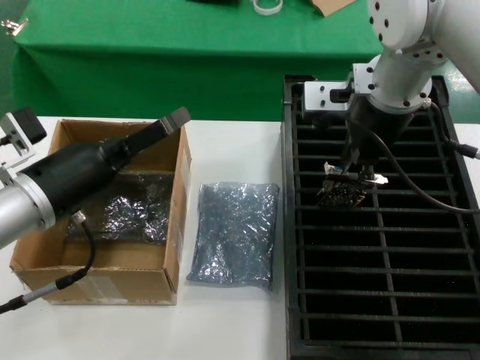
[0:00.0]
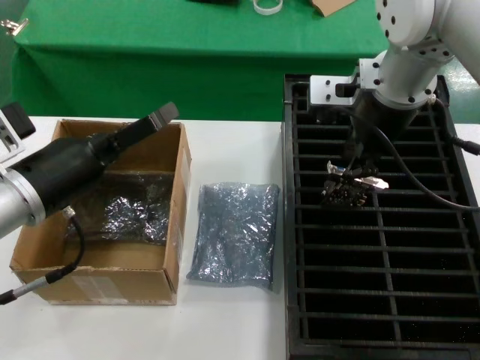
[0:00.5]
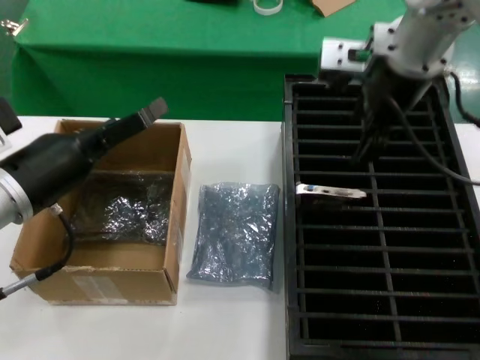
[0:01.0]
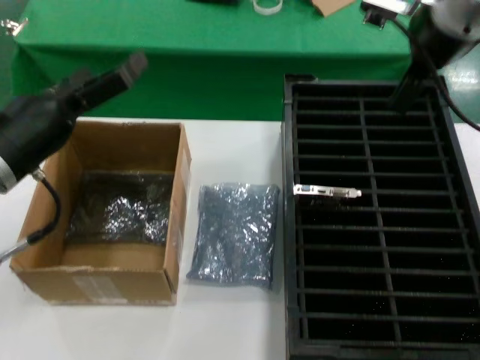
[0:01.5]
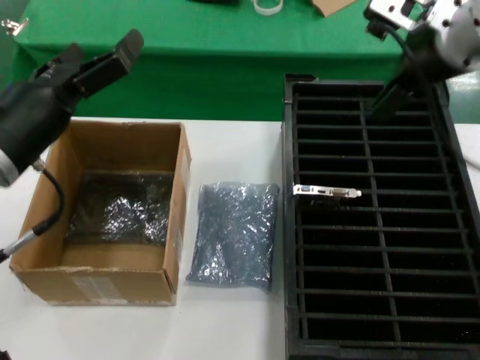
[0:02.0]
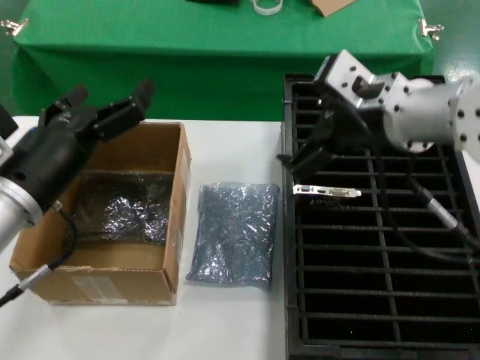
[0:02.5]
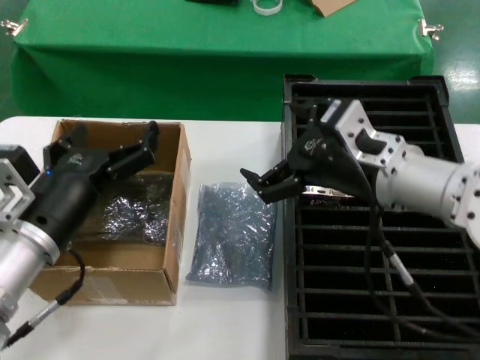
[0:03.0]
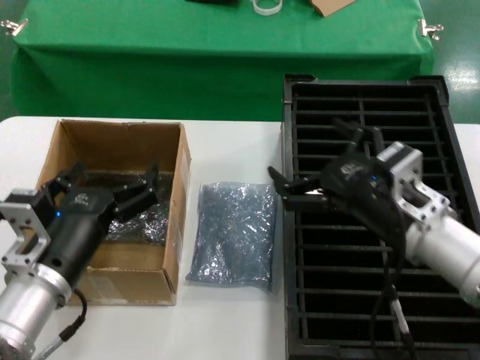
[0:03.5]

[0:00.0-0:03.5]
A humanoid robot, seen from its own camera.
Task of the whole recording: take out graphics card from box remove packaging put into black container.
0:00.0 to 0:02.0: The left hand moves about 5 cm. The right hand travels backward and to the right by about 10 cm.
0:02.0 to 0:03.5: The left hand moves downward, to the right and backward, approximately 15 cm. The right hand shifts about 25 cm downward.
